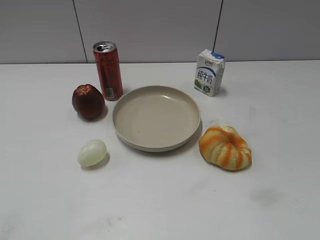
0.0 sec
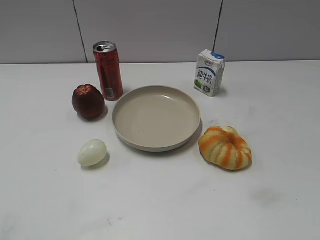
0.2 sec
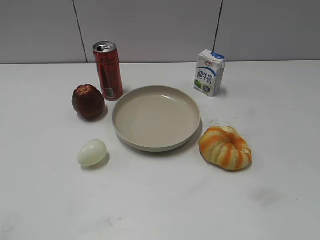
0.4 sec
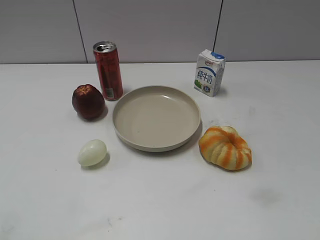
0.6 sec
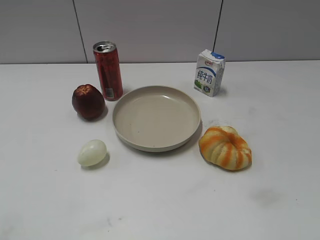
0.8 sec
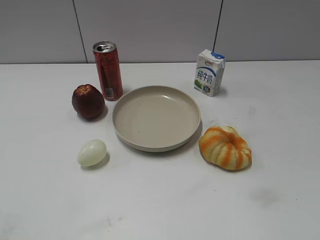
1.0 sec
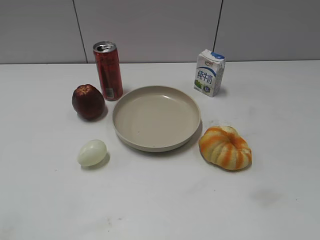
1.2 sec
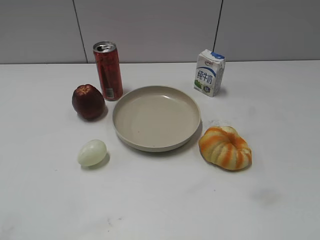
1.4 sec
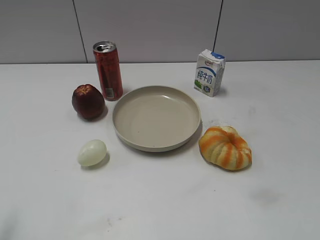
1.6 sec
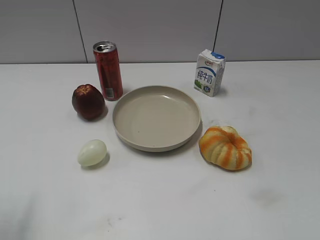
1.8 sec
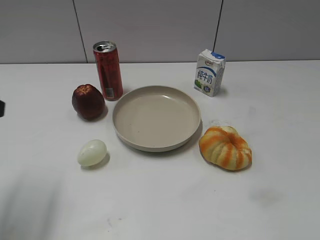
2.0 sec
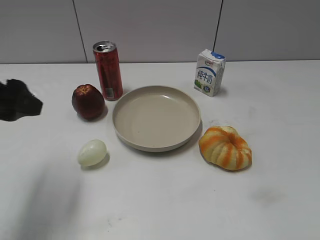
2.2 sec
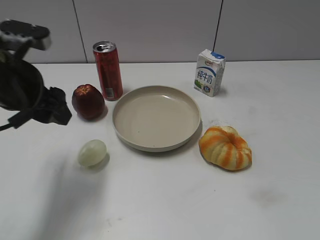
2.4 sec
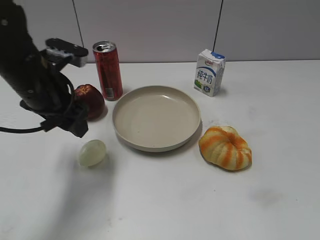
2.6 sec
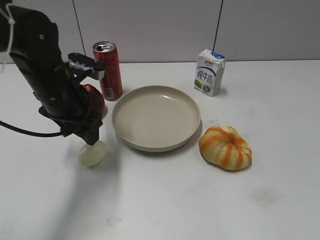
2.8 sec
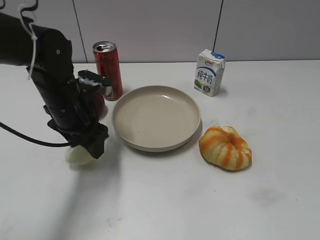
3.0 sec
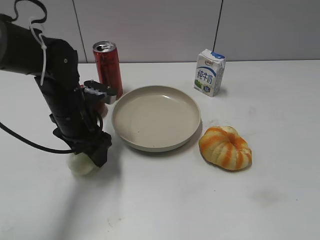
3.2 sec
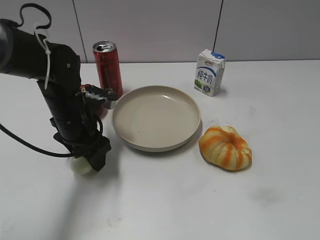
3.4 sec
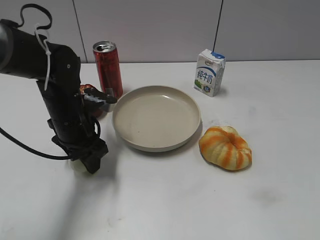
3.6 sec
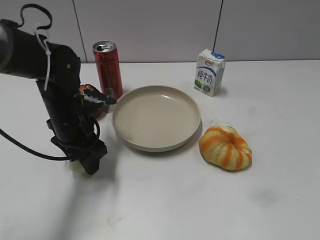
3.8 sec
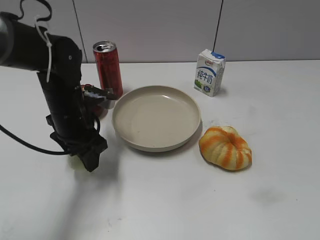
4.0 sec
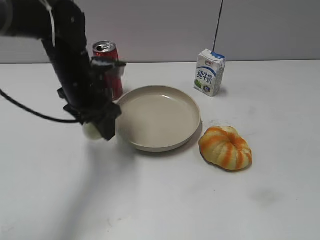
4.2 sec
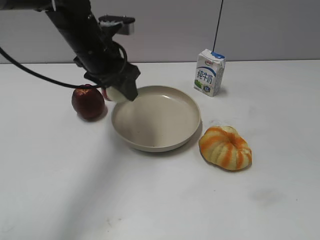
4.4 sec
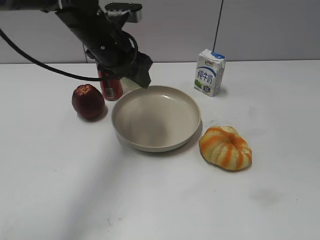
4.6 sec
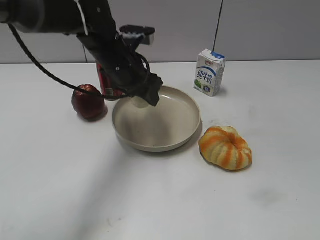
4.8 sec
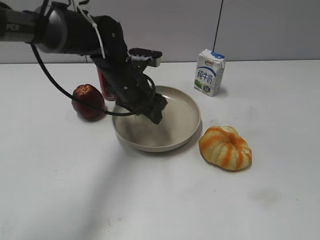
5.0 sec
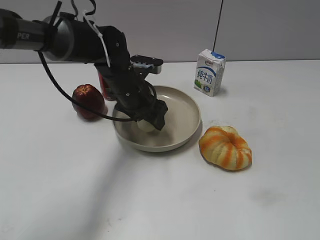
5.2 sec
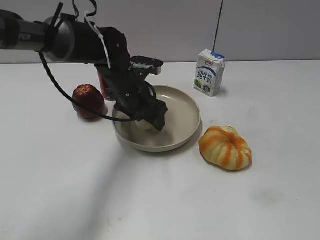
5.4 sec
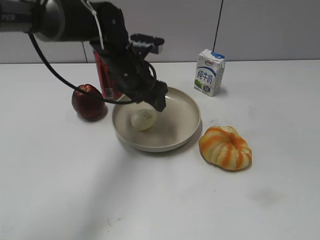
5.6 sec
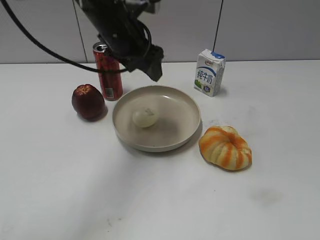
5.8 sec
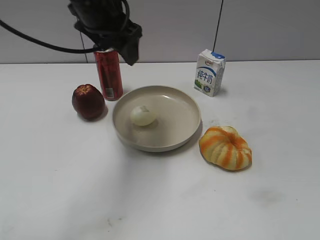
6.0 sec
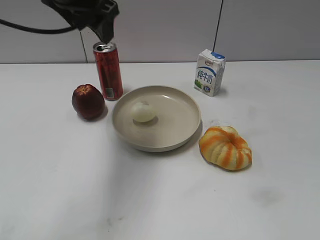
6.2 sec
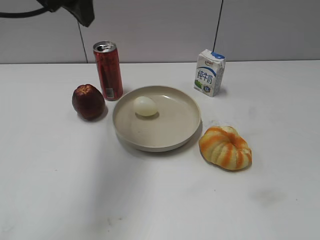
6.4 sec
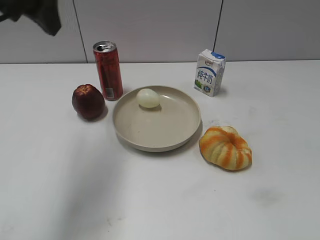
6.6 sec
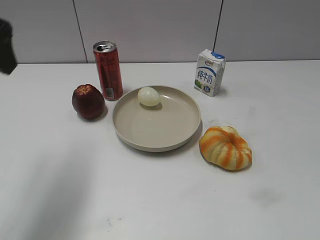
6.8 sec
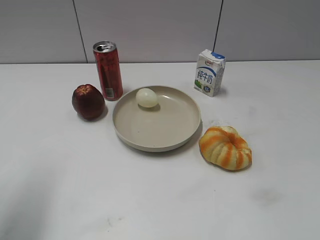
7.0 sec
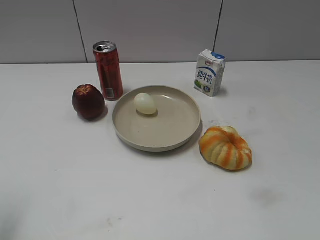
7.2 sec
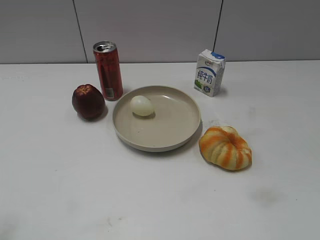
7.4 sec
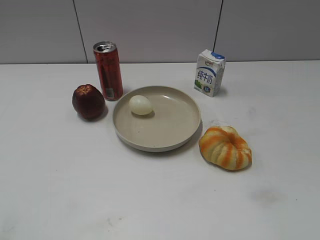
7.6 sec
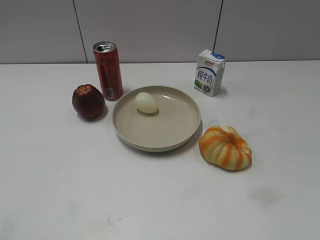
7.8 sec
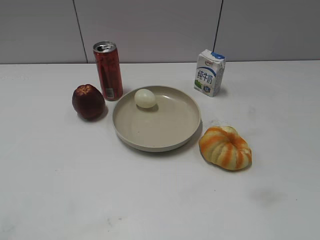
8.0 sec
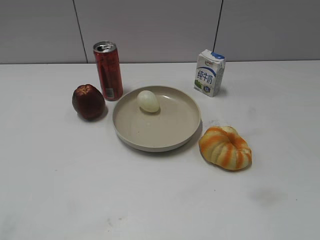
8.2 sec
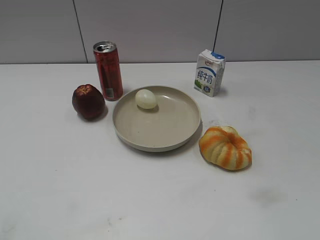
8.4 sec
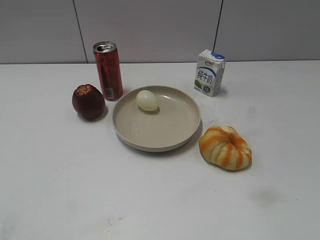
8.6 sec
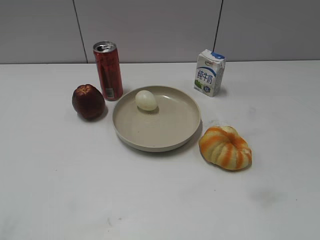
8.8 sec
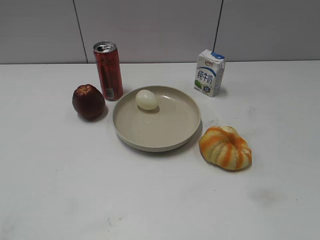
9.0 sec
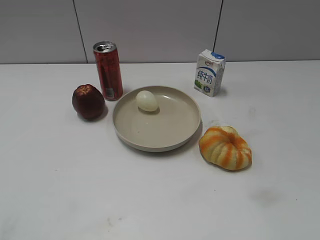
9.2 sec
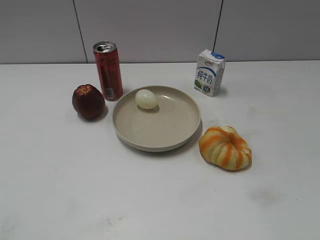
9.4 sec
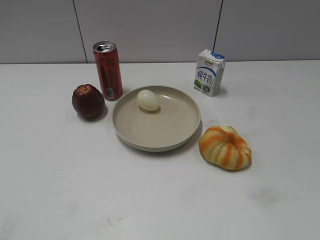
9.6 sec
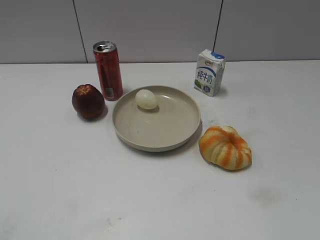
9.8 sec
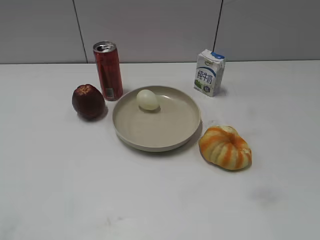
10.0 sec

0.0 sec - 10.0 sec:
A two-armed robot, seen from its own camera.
Step, 1.0 sec - 4.0 sec: Grasp the egg with left gripper.
Step, 4.2 sec - 5.6 sec: Place the egg on the plate with left gripper.
1.4 sec - 2.8 sec: The left gripper moves forward and to the right, approximately 35 cm.
2.8 sec - 4.2 sec: The left gripper closes up.
4.2 sec - 5.8 sec: The left gripper swings up and down, approximately 10 cm each way, with 2 reversals, and opens up.
5.8 sec - 7.2 sec: The left gripper goes about 35 cm to the left and backward.
